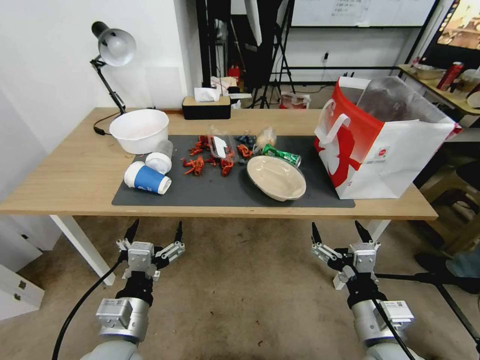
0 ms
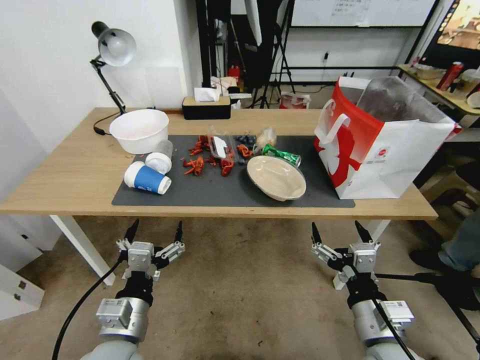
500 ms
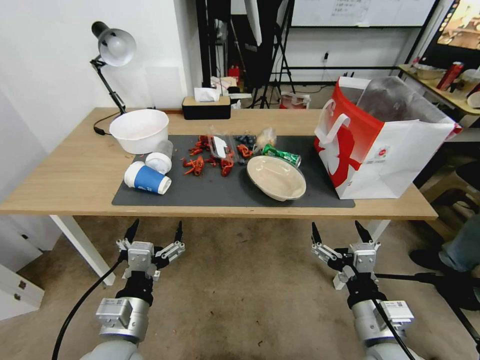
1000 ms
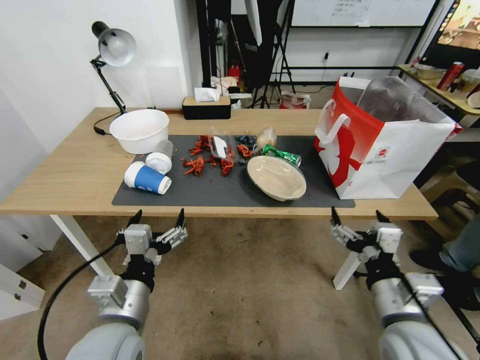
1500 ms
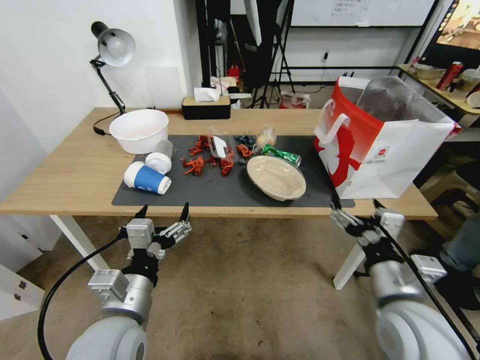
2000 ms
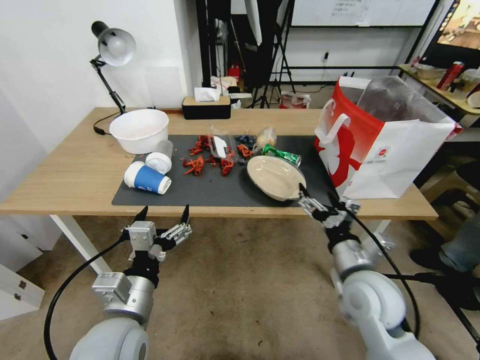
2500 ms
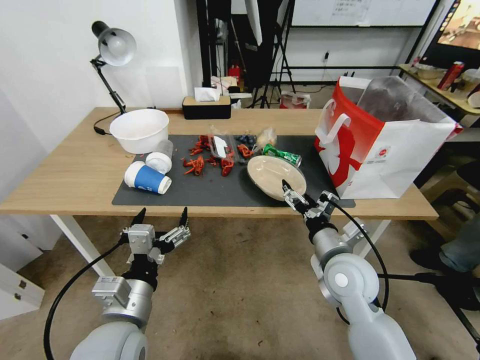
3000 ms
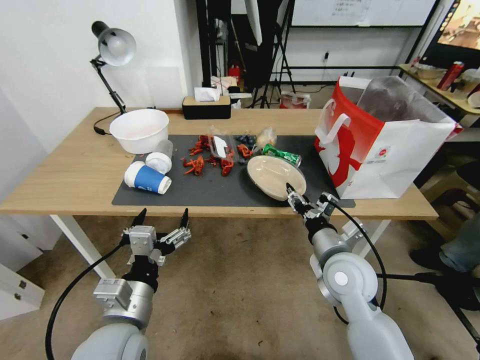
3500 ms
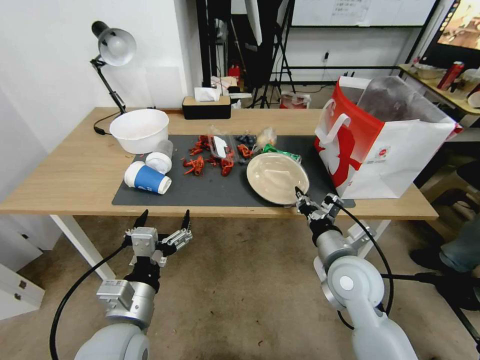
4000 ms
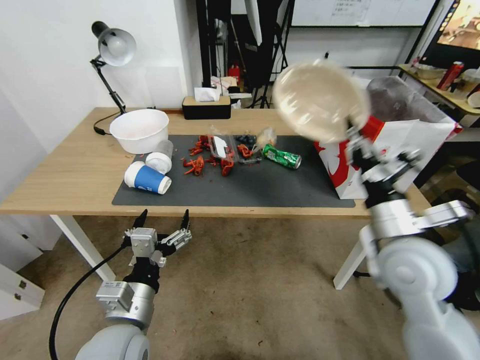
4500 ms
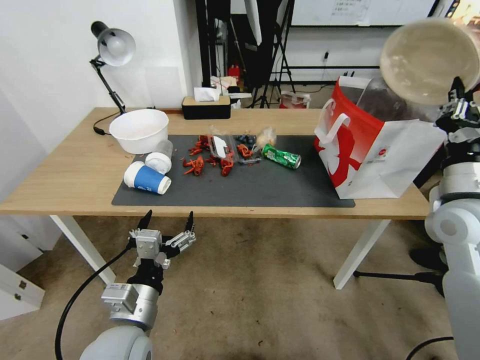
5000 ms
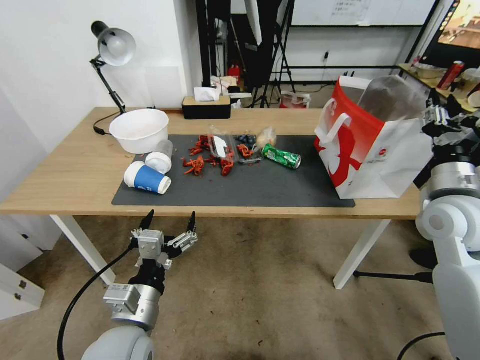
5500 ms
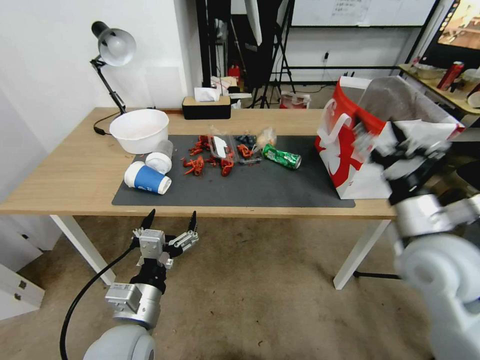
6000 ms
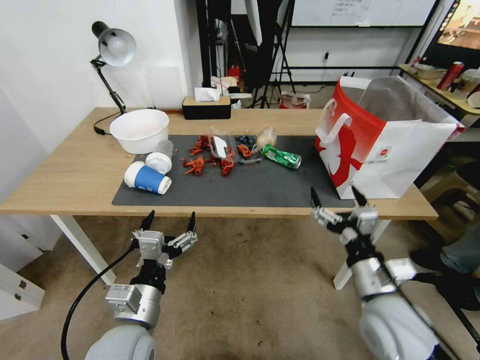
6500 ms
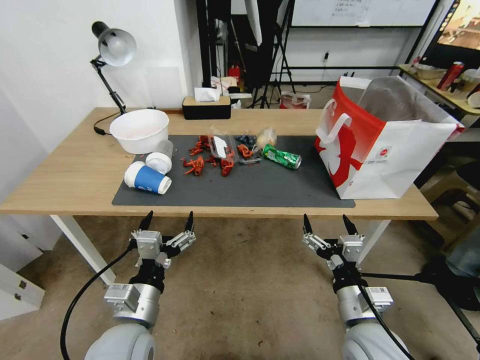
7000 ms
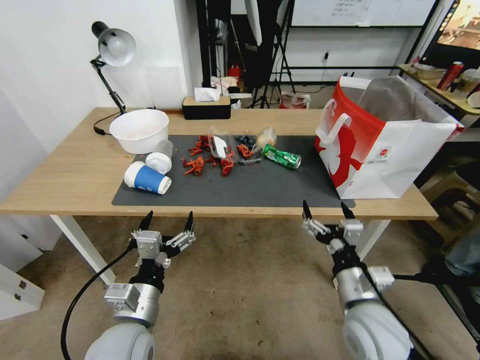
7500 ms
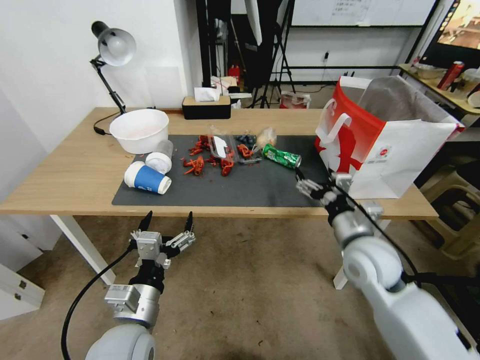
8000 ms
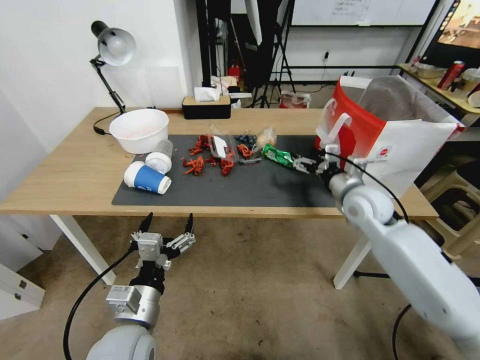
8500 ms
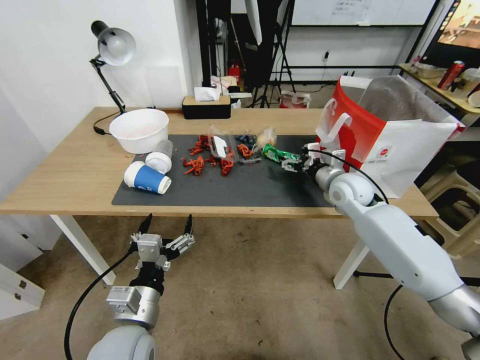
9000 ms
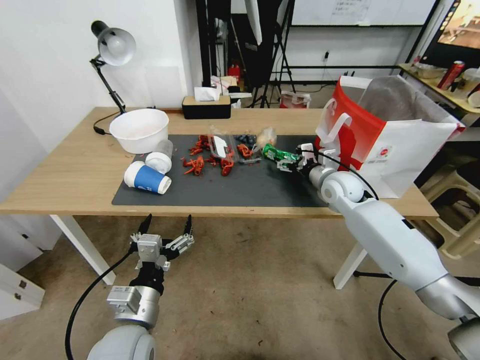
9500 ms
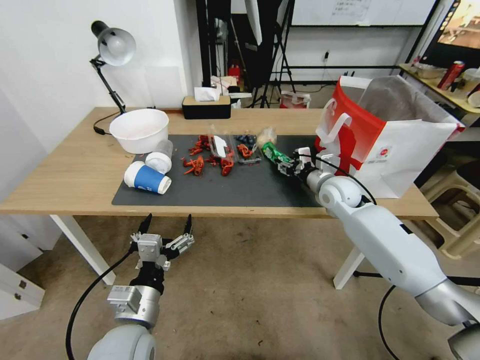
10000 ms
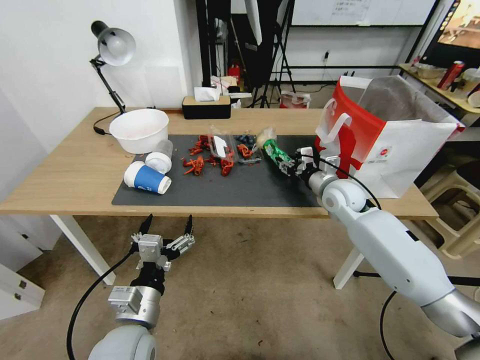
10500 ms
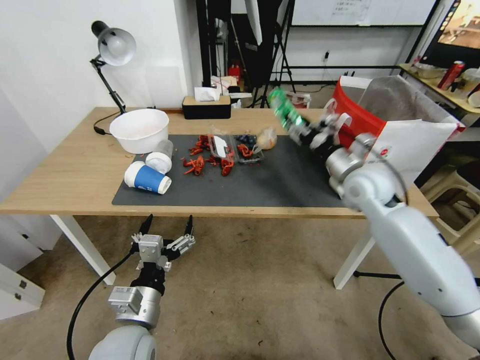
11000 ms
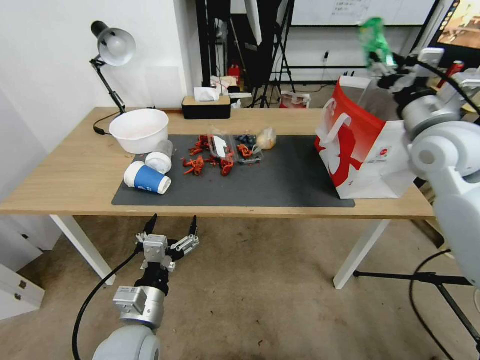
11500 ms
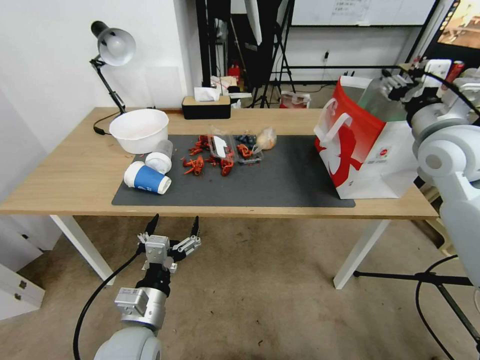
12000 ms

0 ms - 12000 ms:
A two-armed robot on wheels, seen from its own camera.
2000 ms - 4000 ms: The right gripper shifts some 10 cm forward, and closes.
4000 ms - 6000 ms: The right gripper shifts some 15 cm upward and to the right, and opens.
6000 ms - 8000 ms: The right gripper travels downward and to the left by roughly 10 cm.
8000 ms - 10000 ms: The right gripper is displaced forward by some 20 cm, and closes up.
10000 ms - 12000 ms: The right gripper is displaced upward, to the right and backward by approximately 25 cm.

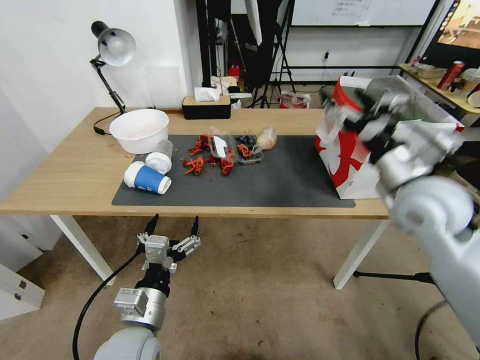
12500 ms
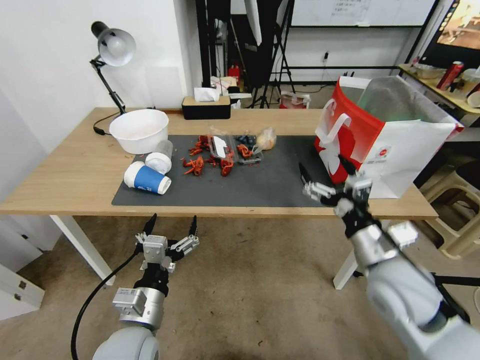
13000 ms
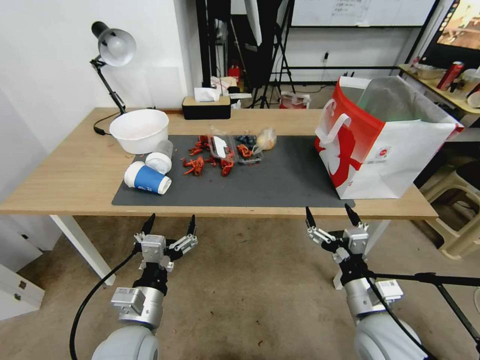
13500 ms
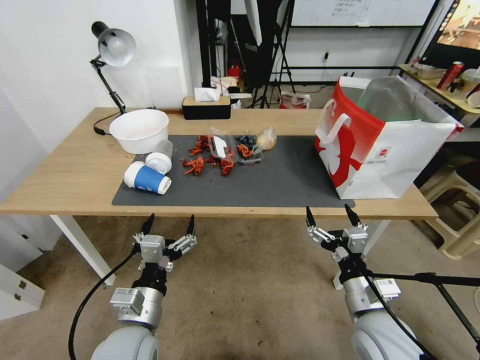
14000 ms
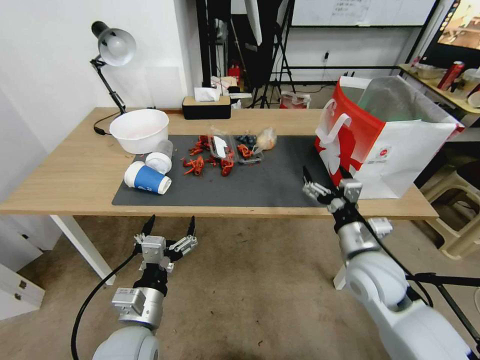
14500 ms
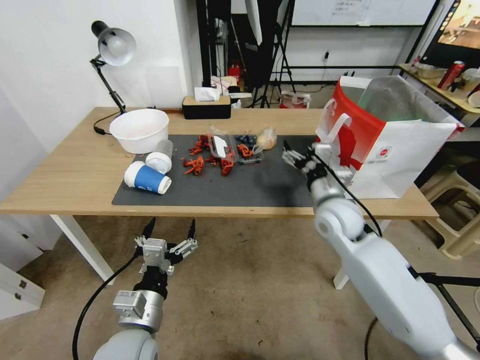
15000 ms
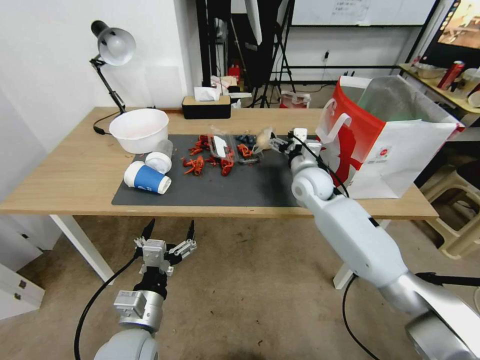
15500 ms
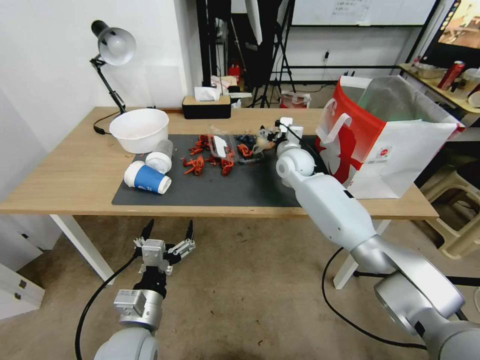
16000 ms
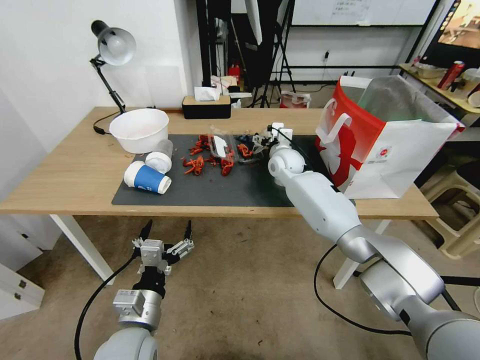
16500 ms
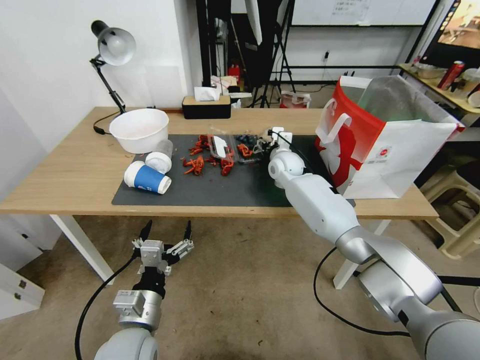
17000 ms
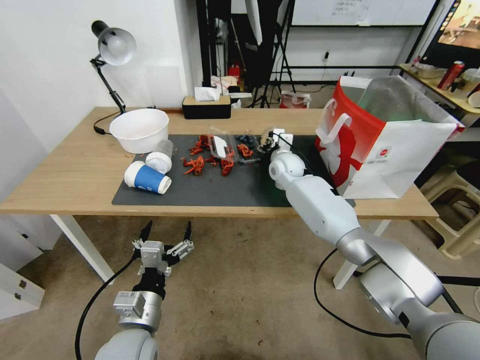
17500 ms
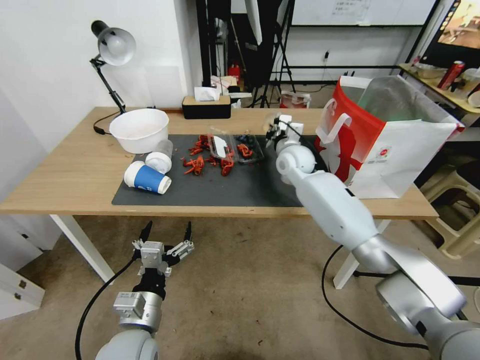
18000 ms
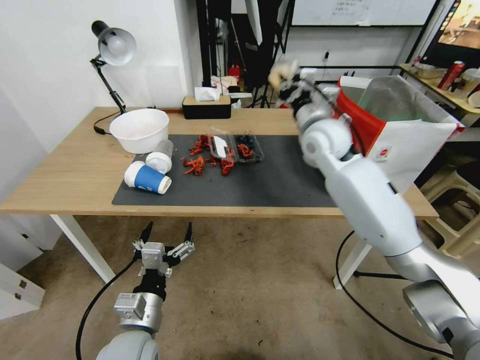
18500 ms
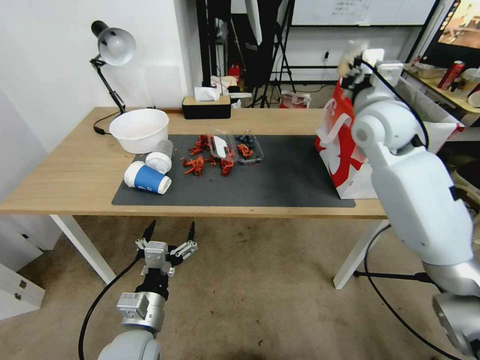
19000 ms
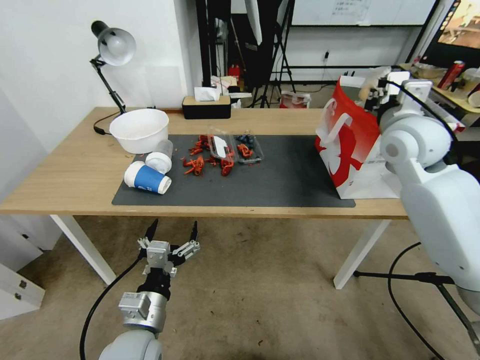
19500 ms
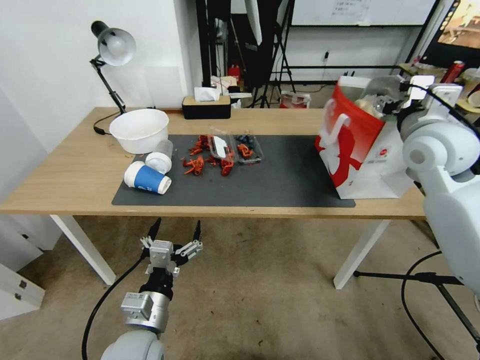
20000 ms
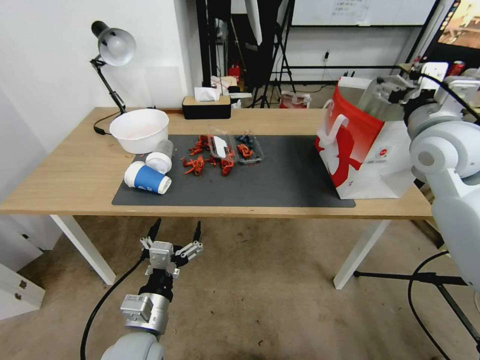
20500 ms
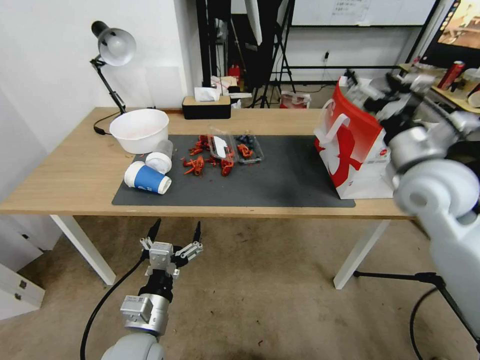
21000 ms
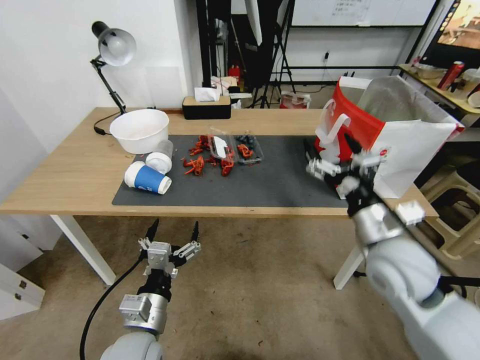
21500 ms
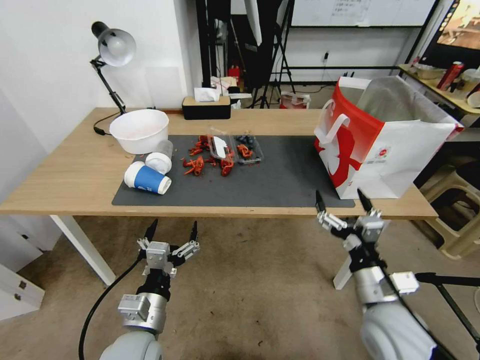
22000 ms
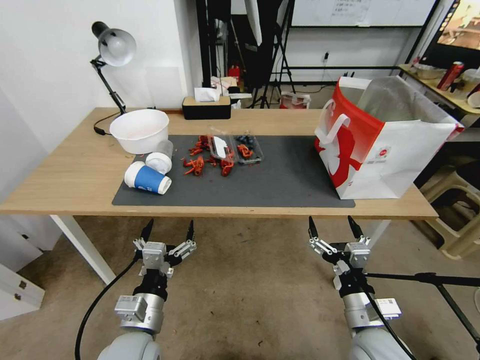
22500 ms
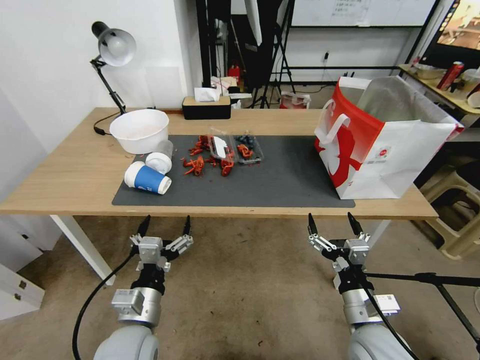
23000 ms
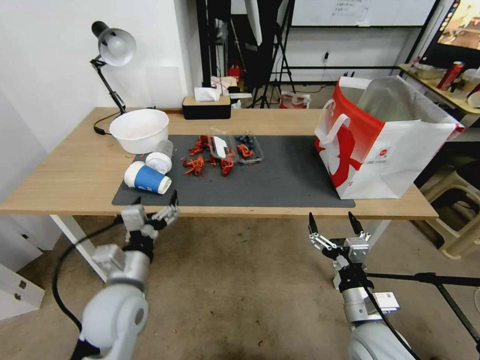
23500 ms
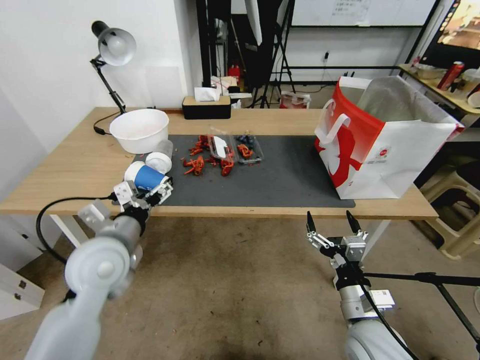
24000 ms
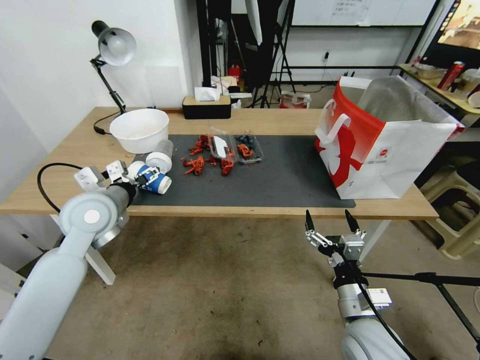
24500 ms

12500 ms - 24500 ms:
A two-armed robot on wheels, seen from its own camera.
12500 ms - 14500 ms: The right gripper heads downward, covering roughly 15 cm.
14500 ms - 16500 ms: The right gripper moves forward, some 30 cm.
16500 ms - 18500 ms: The right gripper travels upward and backward by approximately 20 cm, and closes.
18500 ms - 20500 ms: The right gripper heads to the right and backward, covering some 20 cm, and opens up.
20500 ms - 22500 ms: The right gripper moves downward and backward, some 40 cm.
22500 ms - 24500 ms: The left gripper travels forward, upward and to the left by some 25 cm.

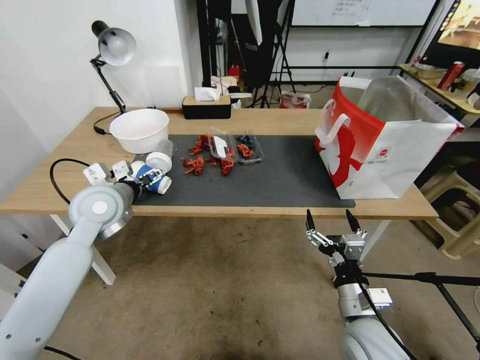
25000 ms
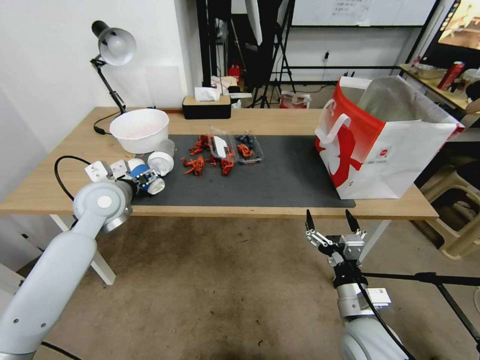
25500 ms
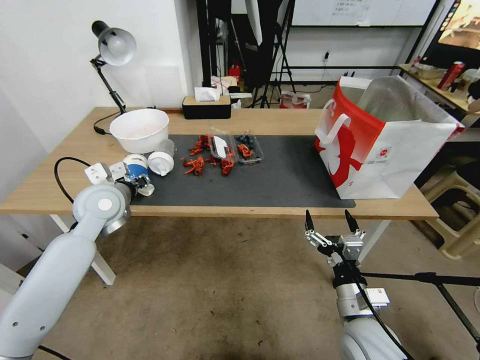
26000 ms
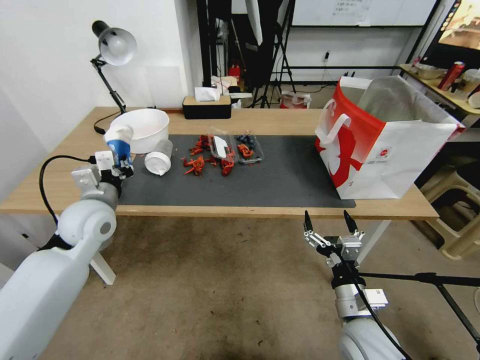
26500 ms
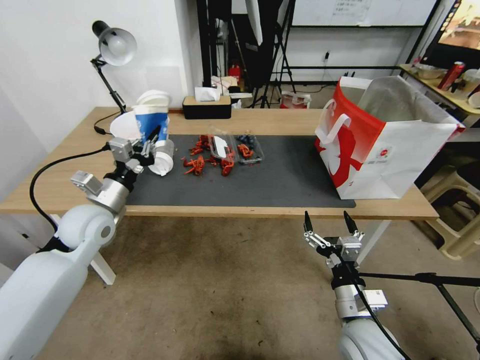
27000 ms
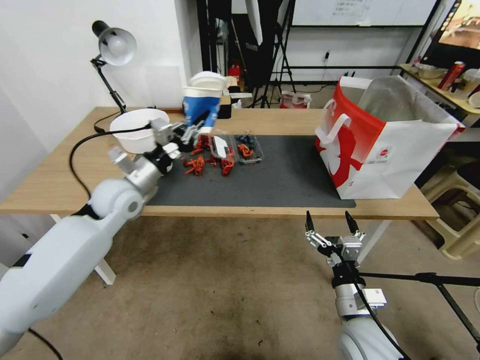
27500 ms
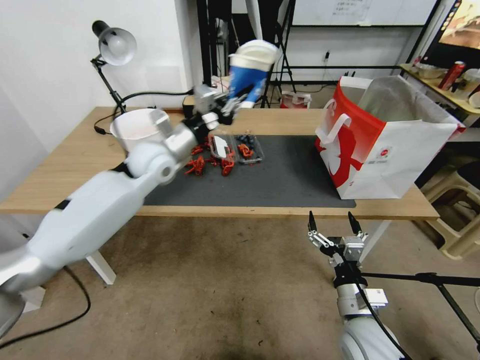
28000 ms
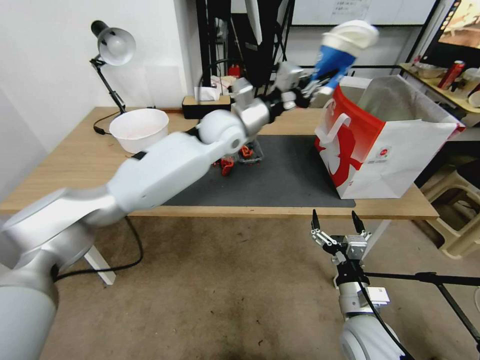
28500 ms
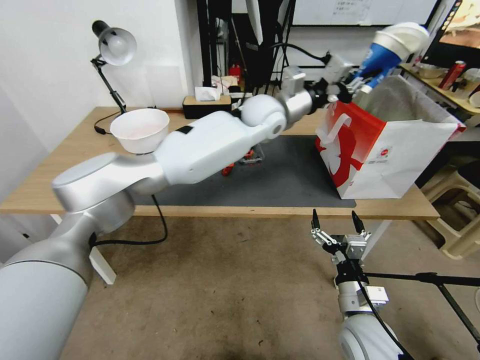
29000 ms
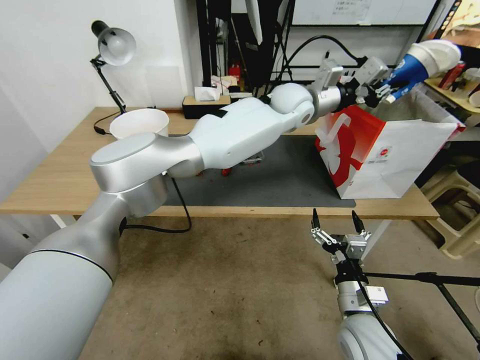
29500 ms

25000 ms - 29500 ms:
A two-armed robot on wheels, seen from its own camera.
25000 ms - 27000 ms: The left gripper moves roughly 5 cm, and closes up.
27000 ms - 29500 ms: The left gripper travels to the right and forward by roughly 50 cm.
